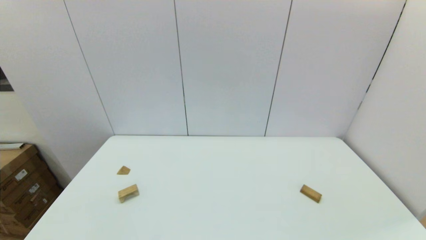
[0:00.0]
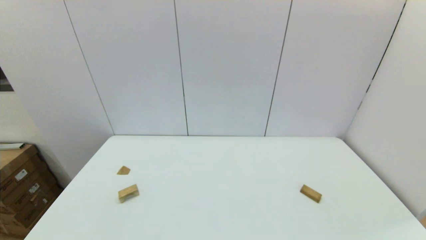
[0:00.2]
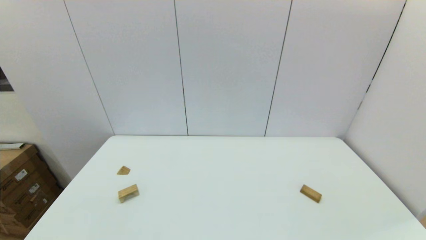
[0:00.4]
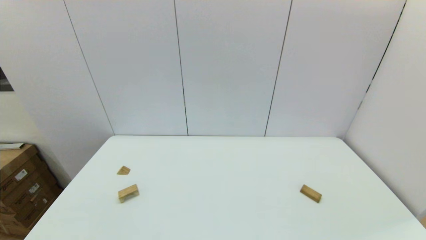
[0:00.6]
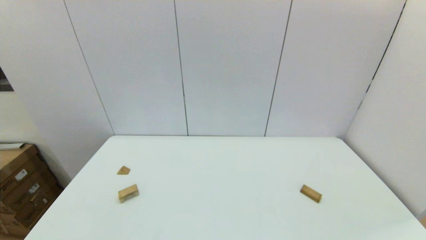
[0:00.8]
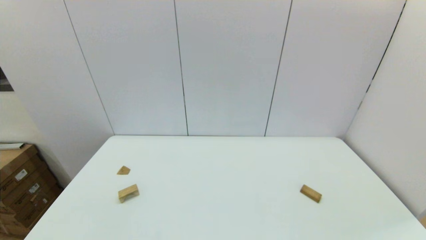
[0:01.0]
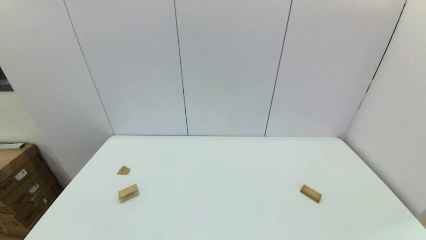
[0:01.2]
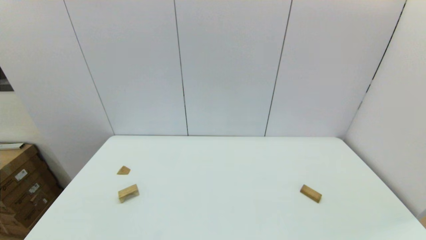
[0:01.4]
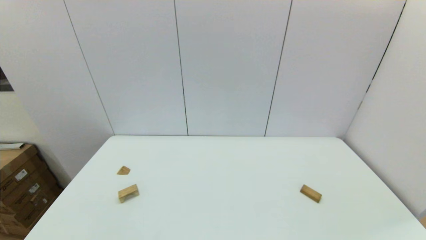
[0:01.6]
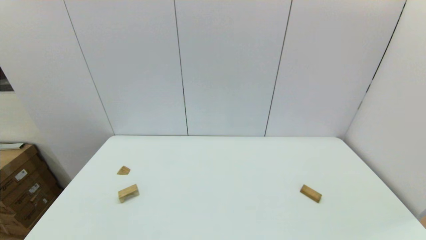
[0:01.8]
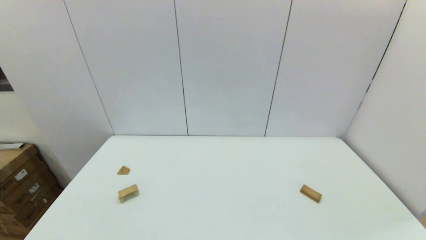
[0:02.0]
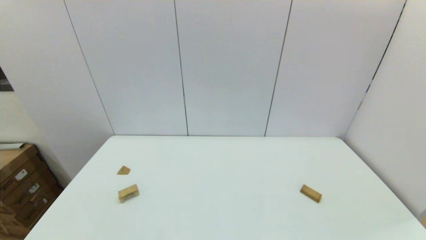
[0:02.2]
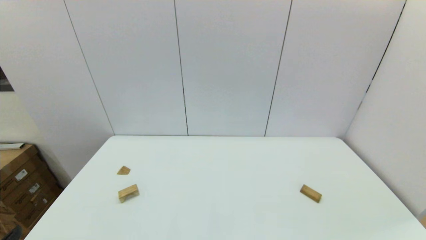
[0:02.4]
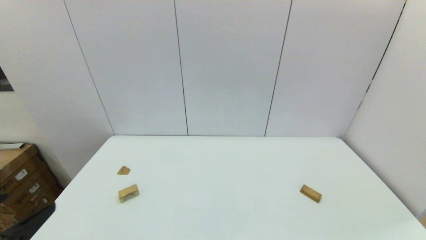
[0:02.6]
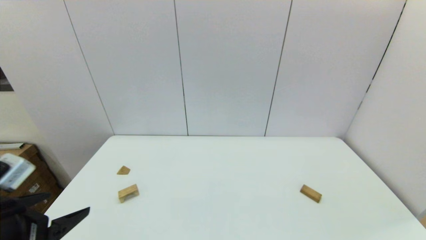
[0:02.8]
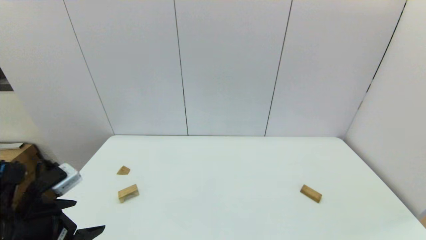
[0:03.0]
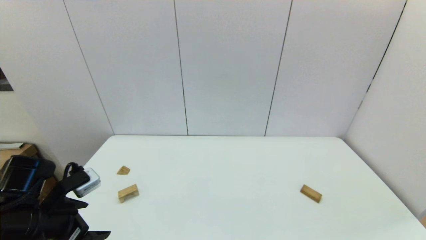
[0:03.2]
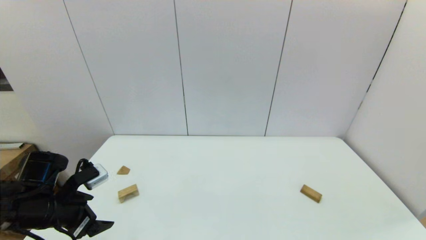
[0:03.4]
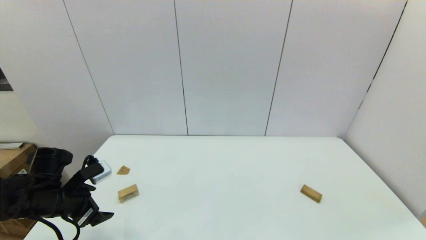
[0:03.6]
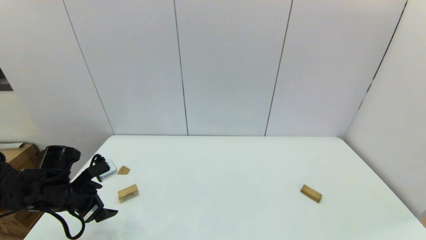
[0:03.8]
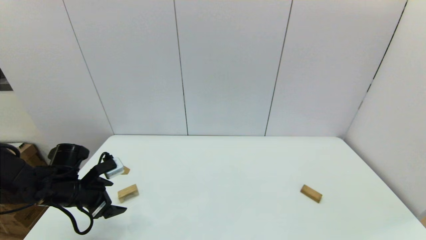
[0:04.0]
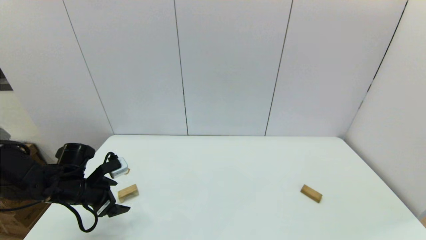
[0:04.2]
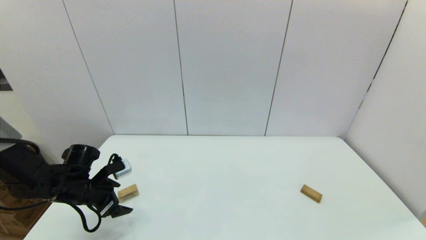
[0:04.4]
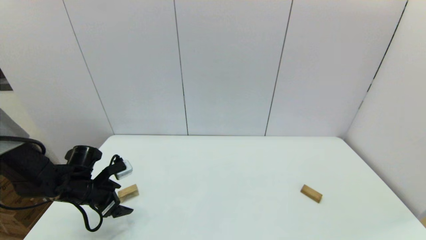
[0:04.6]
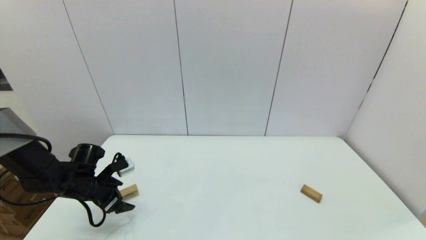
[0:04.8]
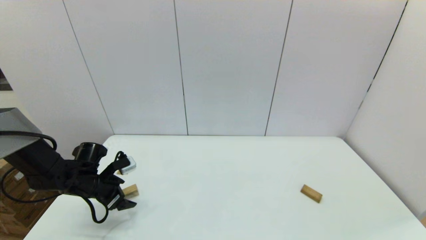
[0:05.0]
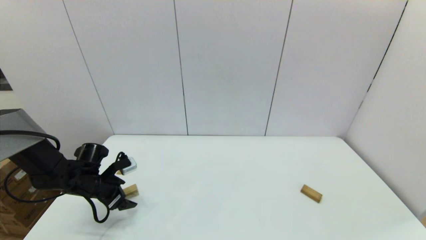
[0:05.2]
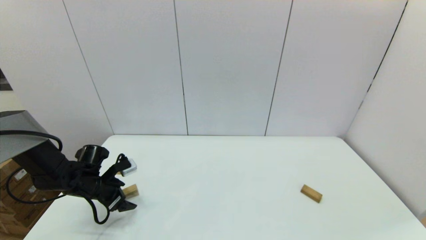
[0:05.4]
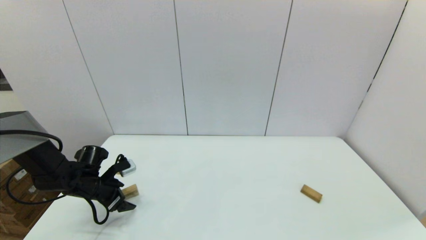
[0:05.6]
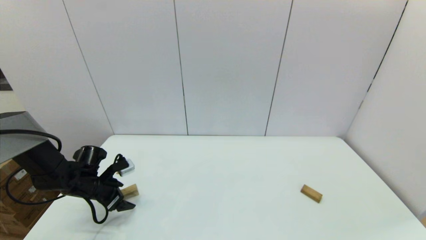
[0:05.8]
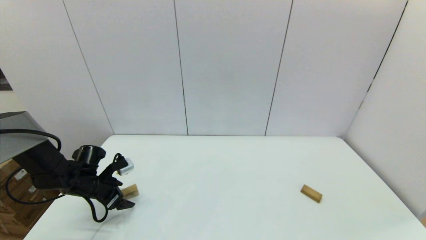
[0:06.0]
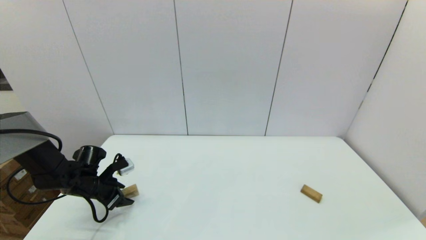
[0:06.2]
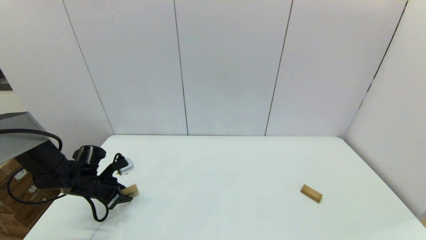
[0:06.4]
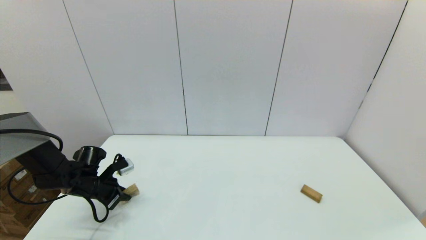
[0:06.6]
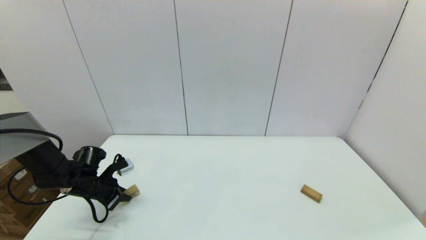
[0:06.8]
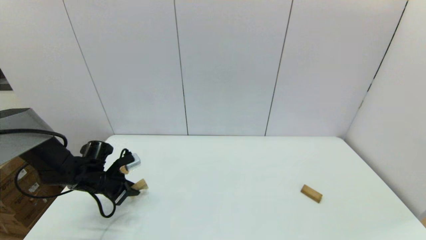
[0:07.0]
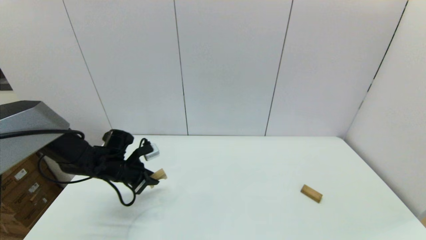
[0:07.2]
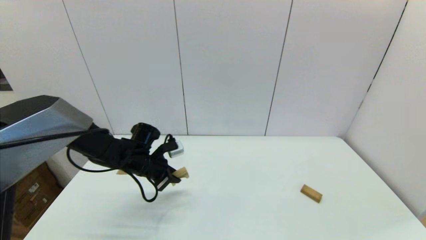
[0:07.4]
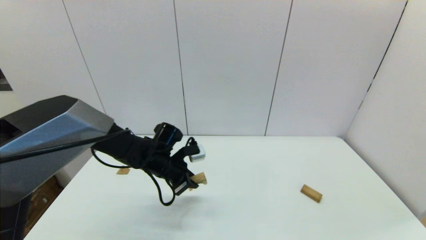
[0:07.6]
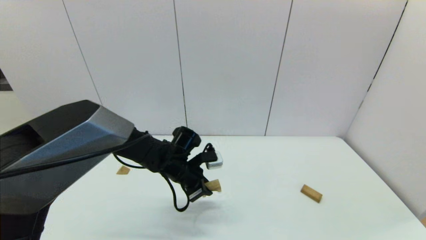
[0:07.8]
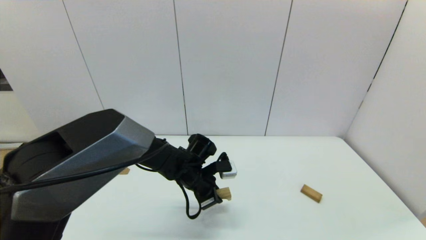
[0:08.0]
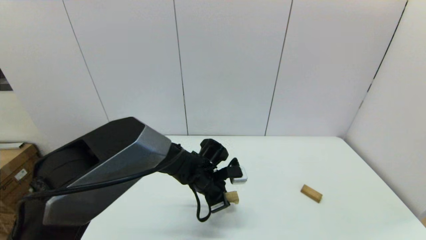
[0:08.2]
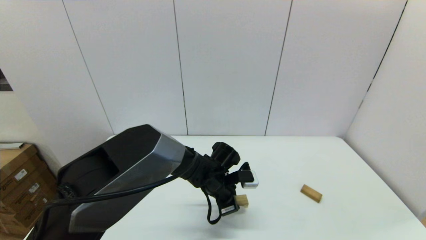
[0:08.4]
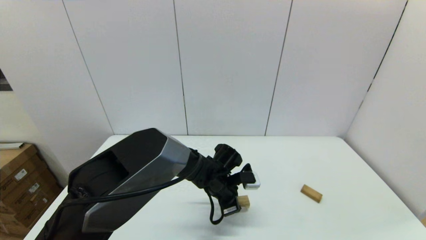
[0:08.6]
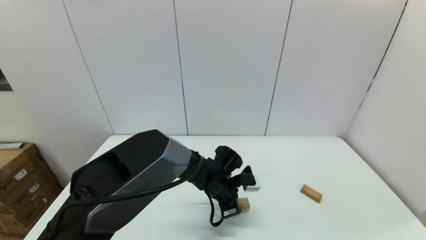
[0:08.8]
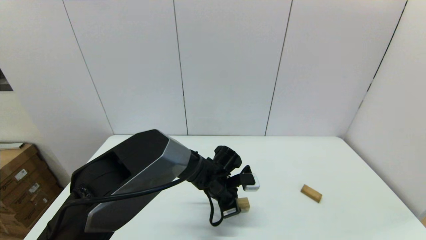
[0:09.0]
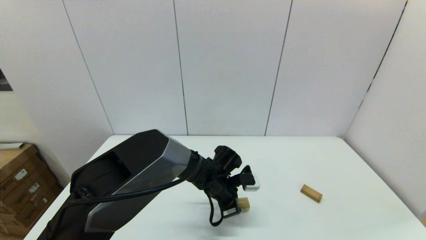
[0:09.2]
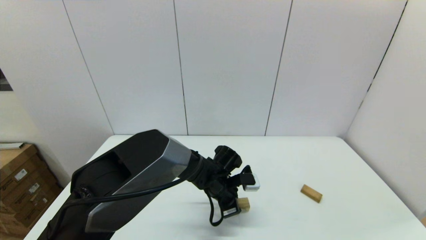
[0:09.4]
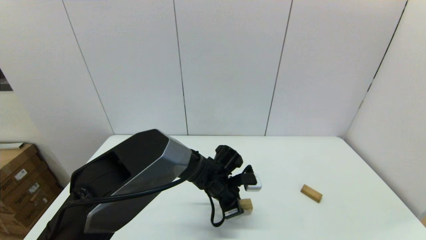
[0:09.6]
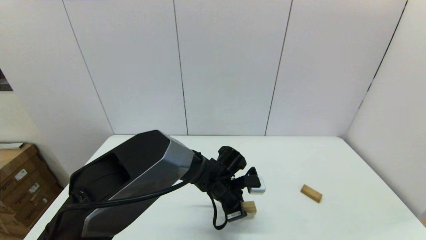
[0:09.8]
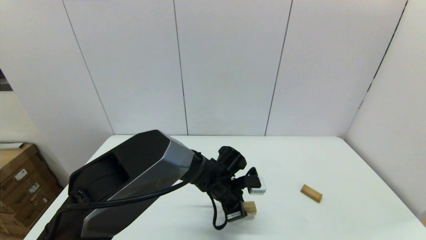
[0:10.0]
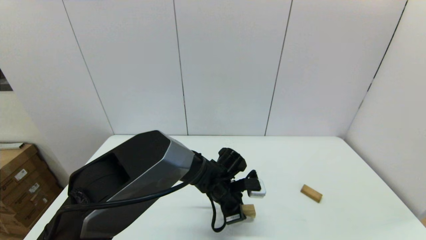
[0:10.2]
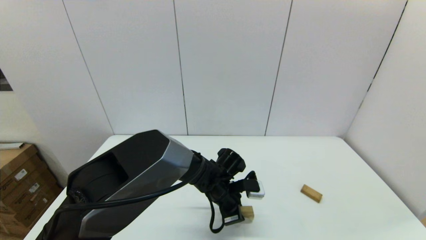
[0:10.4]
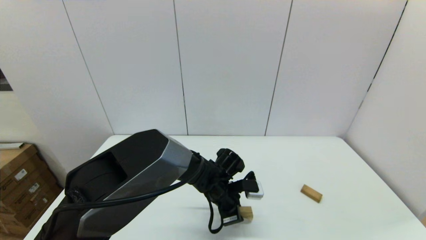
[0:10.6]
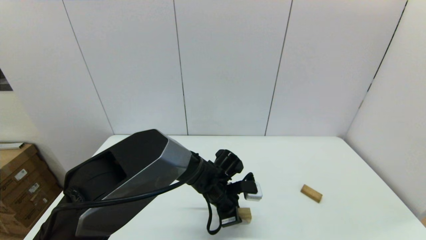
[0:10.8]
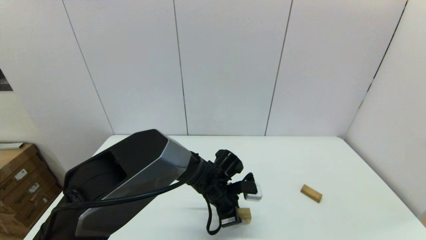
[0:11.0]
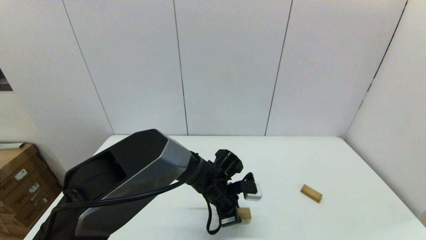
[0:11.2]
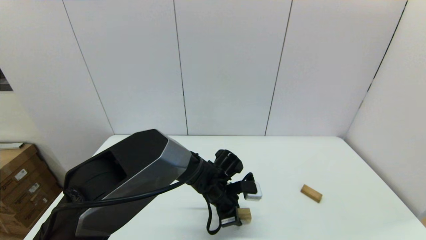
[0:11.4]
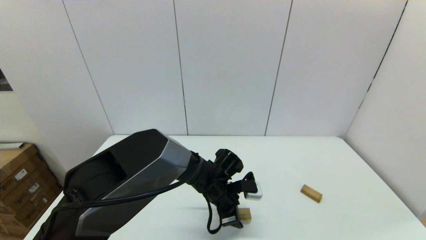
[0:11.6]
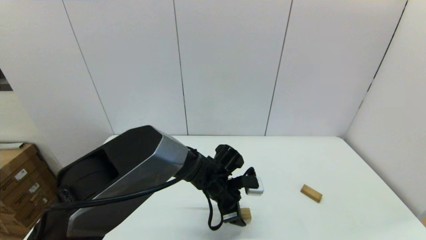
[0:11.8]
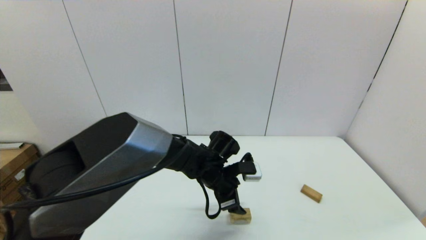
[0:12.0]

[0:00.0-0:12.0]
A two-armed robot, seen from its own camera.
Task of the whole recording: place the arched building blocks in the center of the table, set up the rectangular building blocks, and then set up the triangular building blocks.
Step, 0:02.4 to 0:06.6: Grasp the arch-shaped block with the left gripper.
Step, 0:06.8 to 0:11.4: Place the arch-shaped block in the center of view with the left gripper.
0:00.0 to 0:01.6: The two grippers keep their place.
0:01.6 to 0:03.0: The left gripper heads forward, covering about 15 cm.
0:03.0 to 0:04.4: The left gripper heads forward and downward, covering approximately 15 cm.
0:04.4 to 0:06.0: The left gripper shifts by roughly 5 cm.
0:06.0 to 0:07.6: The left gripper heads to the right, covering about 20 cm, and closes up.
0:07.6 to 0:09.0: The left gripper heads to the right and downward, covering some 15 cm.
0:09.0 to 0:10.4: The grippers make only small movements.
0:10.4 to 0:12.0: The left gripper shifts approximately 5 cm upward, and opens its fingers.

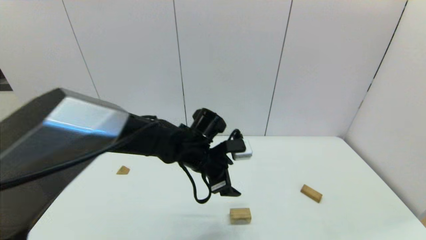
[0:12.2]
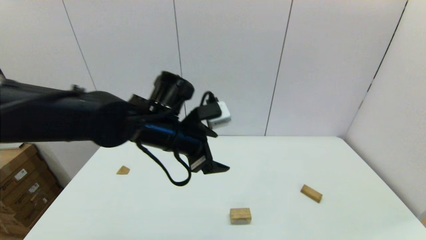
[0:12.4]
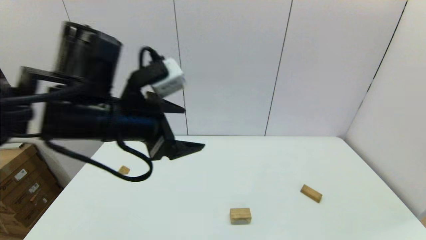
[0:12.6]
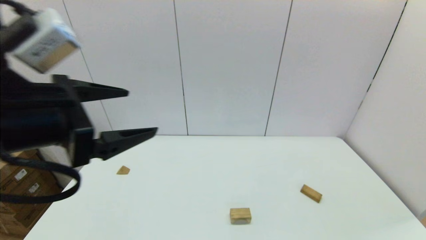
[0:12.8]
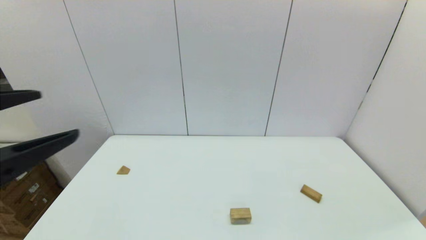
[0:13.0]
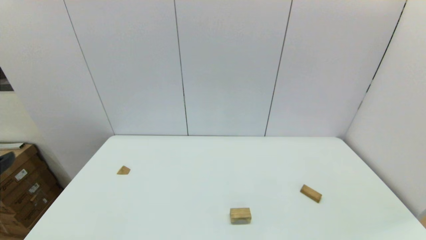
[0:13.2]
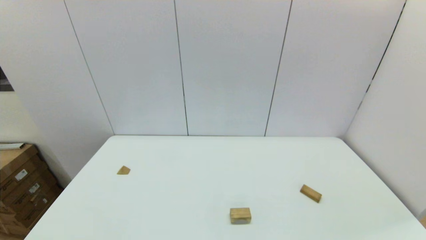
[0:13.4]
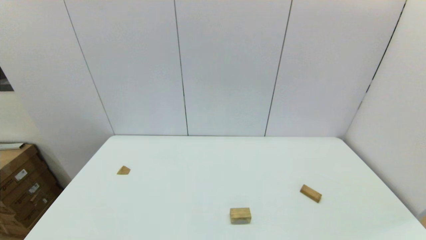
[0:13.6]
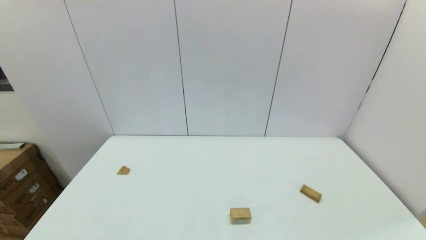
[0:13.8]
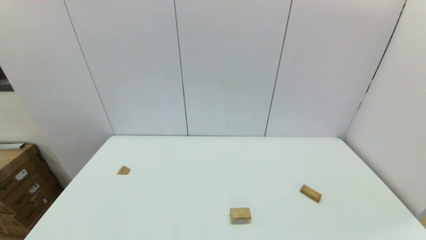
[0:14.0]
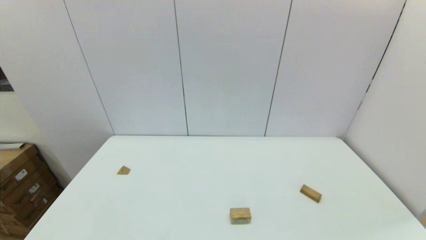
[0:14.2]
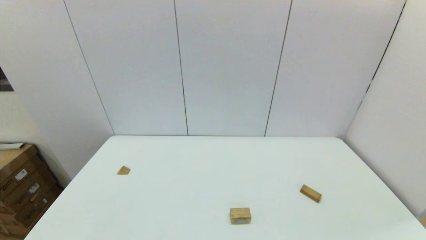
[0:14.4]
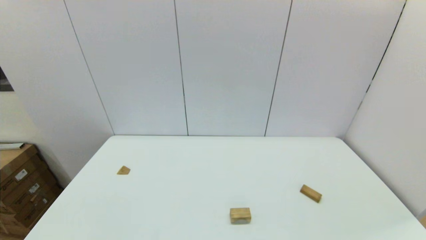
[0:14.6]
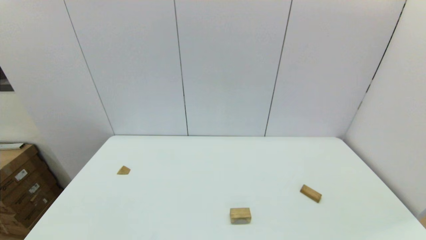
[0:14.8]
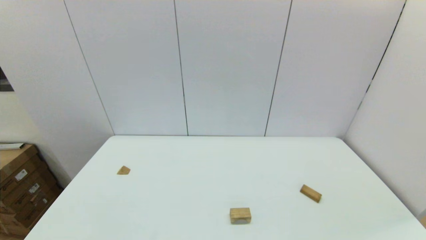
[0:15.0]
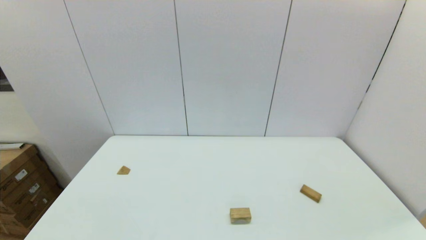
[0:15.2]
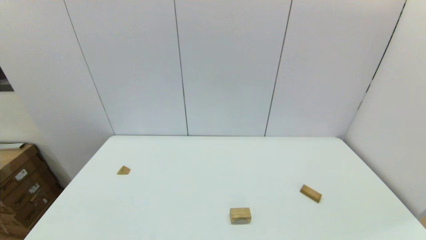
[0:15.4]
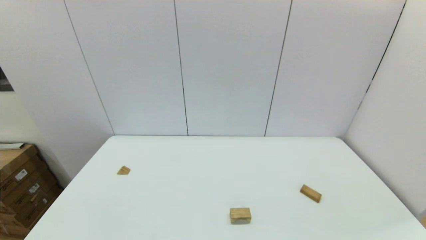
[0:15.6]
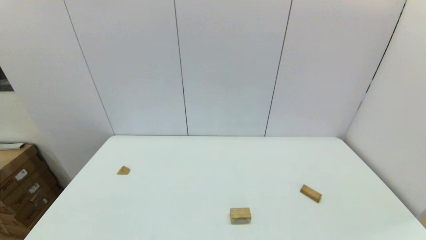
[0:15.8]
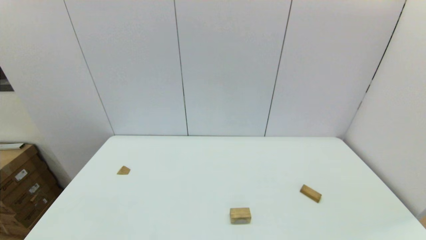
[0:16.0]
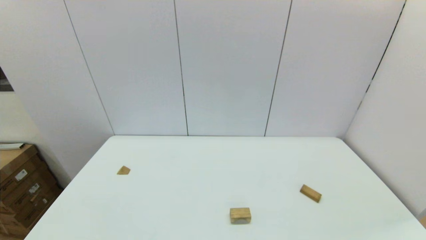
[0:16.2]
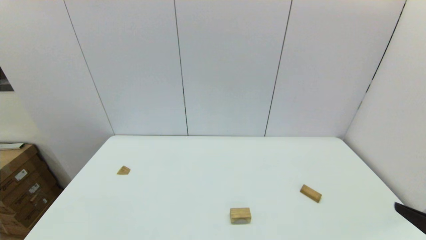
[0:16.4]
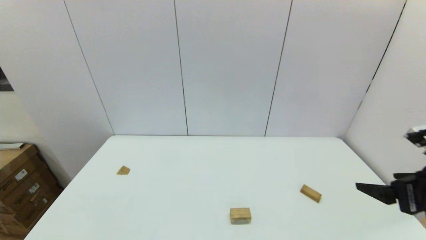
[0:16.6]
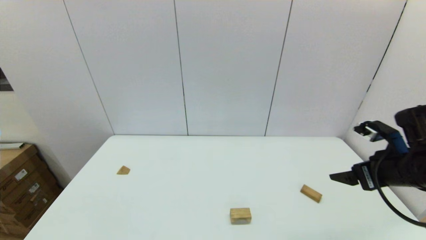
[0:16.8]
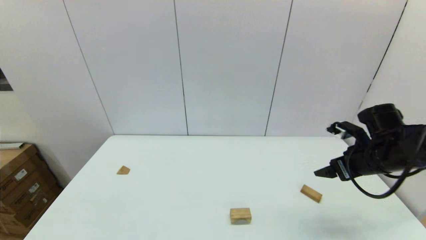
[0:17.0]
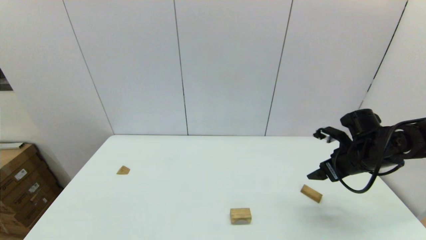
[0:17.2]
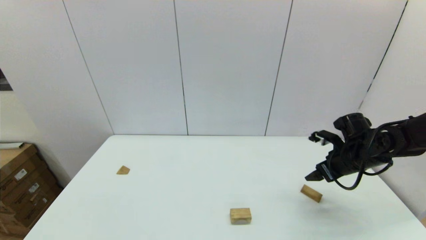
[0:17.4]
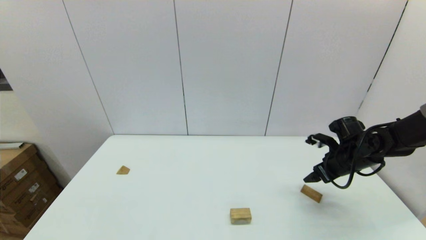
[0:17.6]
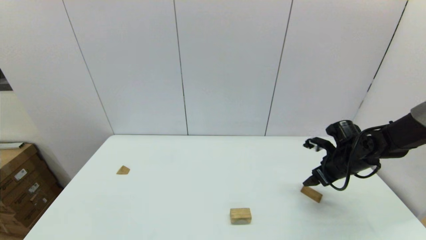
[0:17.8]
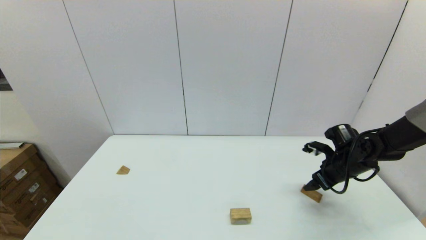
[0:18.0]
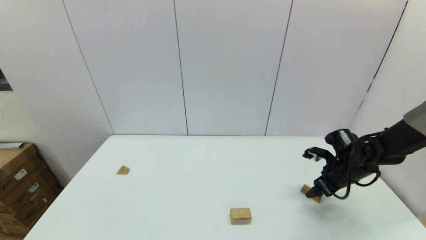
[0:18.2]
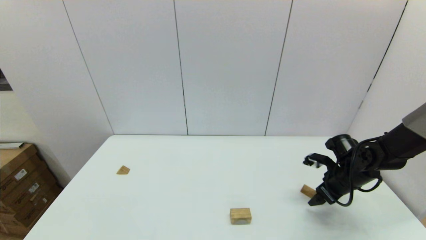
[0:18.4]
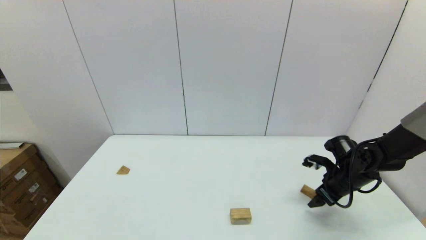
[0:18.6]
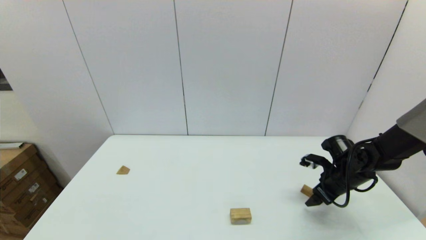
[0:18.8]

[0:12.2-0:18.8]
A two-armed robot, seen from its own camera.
Task of the whole recording: place the arched building blocks in the center of the table, set up the rectangular building blocks, and then set up the triangular building blocks.
0:12.2 to 0:13.8: The left gripper heads backward and to the left, covering about 40 cm.
0:15.4 to 0:17.2: The right gripper heads forward, covering some 35 cm.
0:17.2 to 0:18.8: The right gripper is displaced downward by roughly 10 cm.
